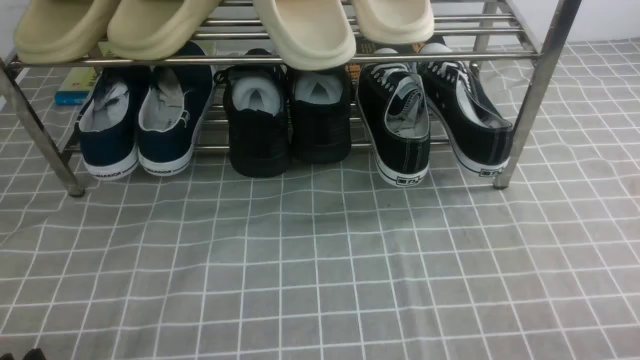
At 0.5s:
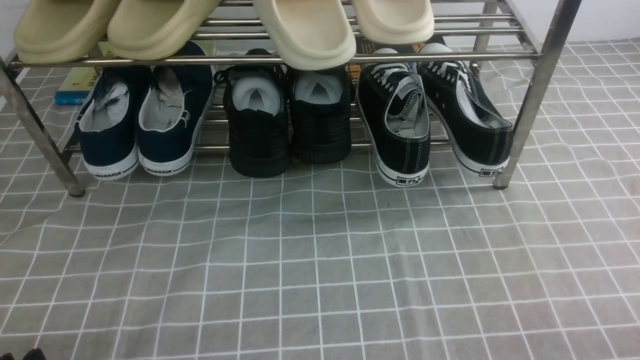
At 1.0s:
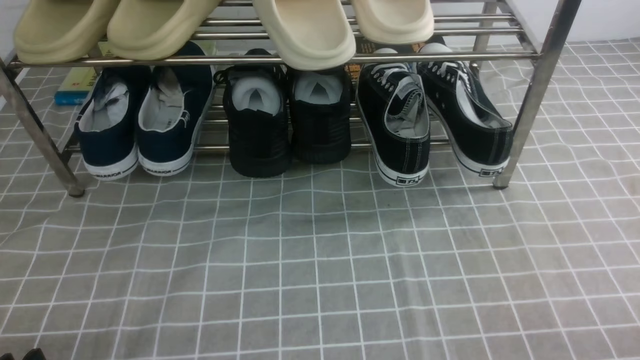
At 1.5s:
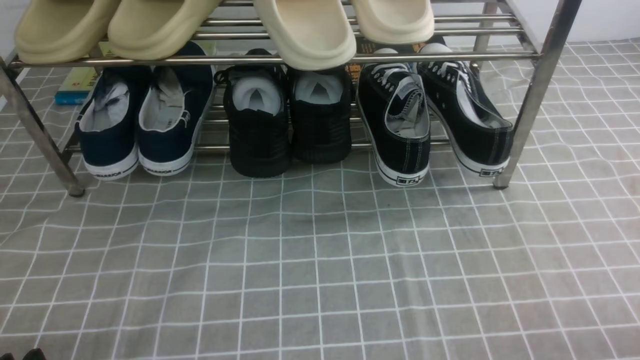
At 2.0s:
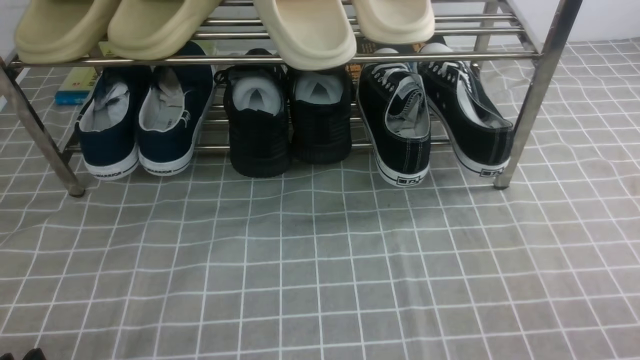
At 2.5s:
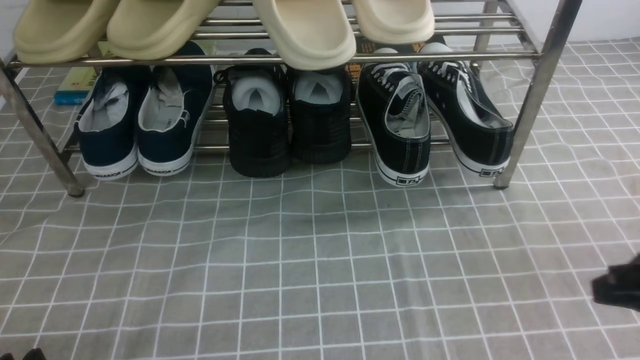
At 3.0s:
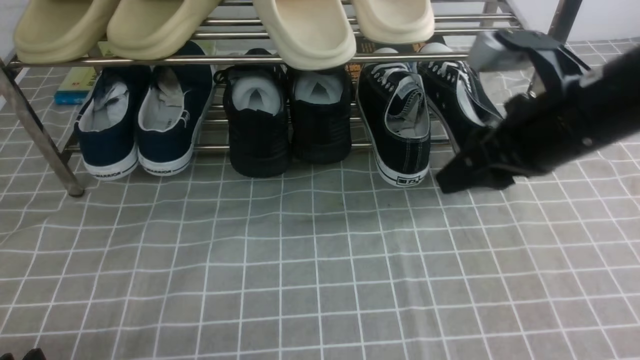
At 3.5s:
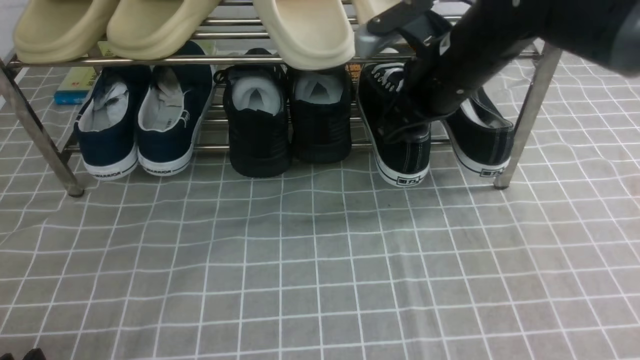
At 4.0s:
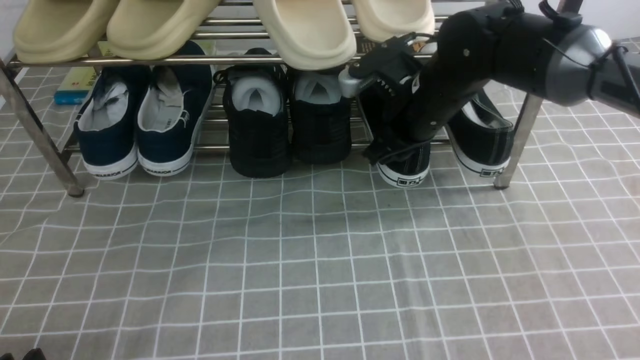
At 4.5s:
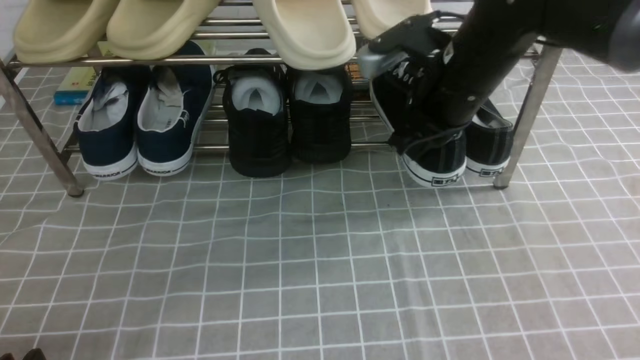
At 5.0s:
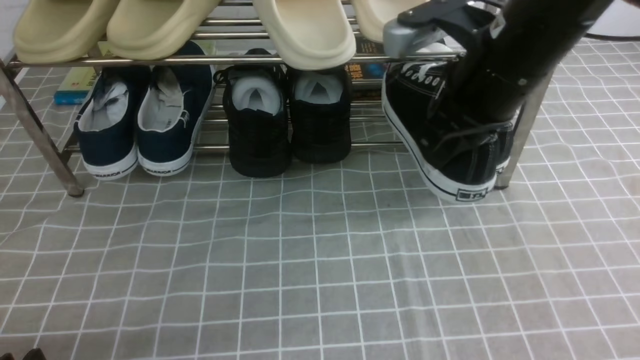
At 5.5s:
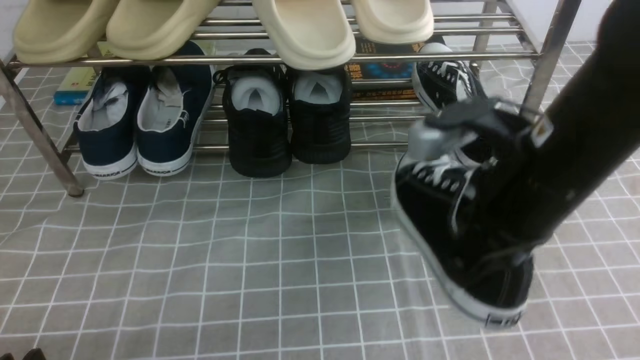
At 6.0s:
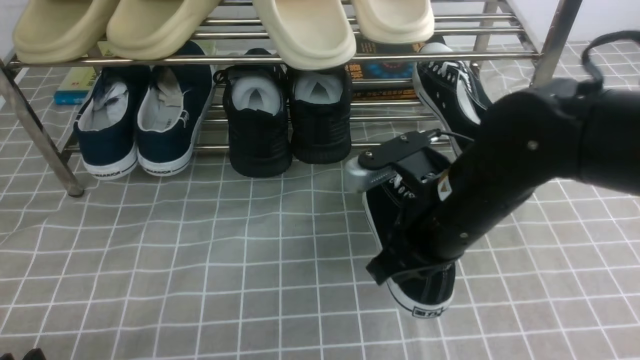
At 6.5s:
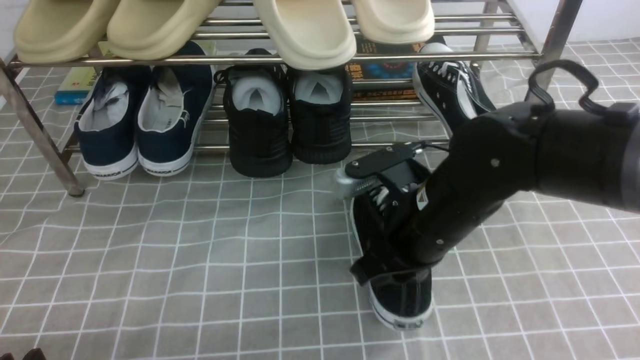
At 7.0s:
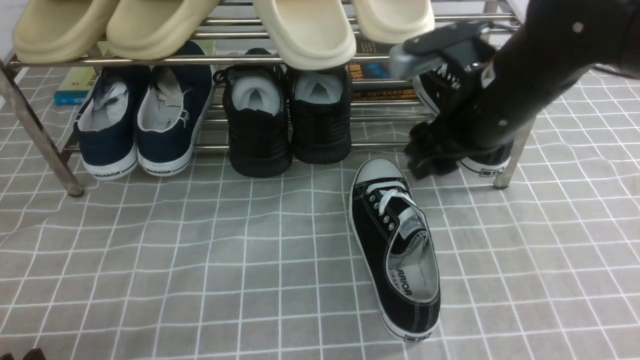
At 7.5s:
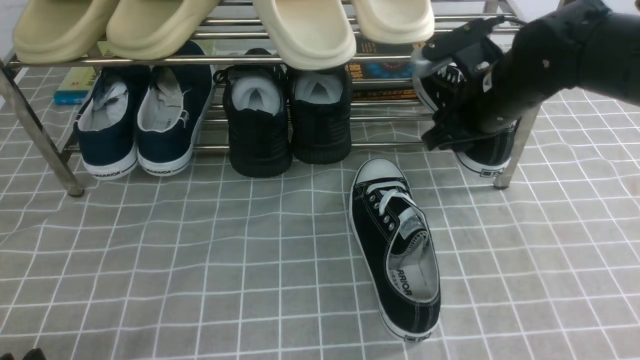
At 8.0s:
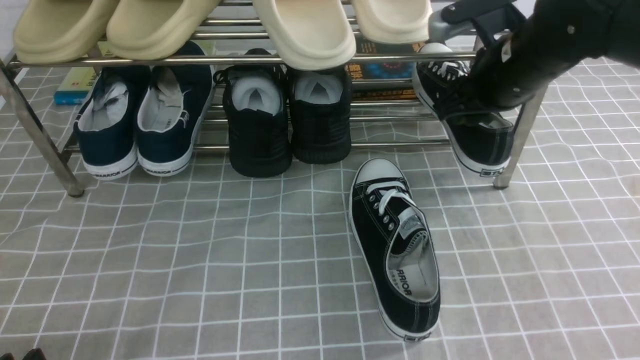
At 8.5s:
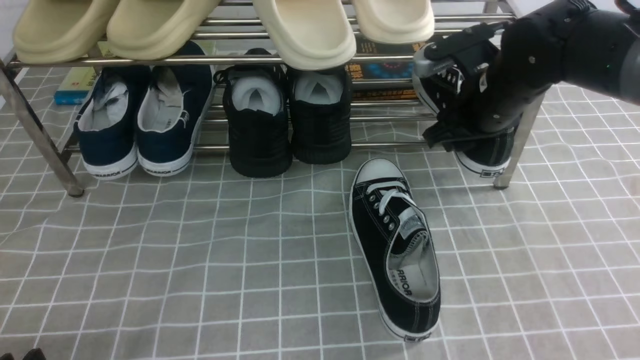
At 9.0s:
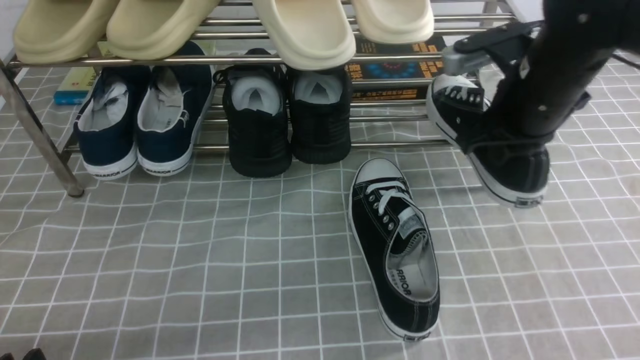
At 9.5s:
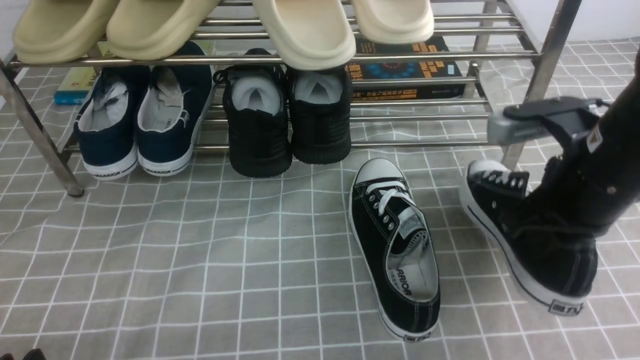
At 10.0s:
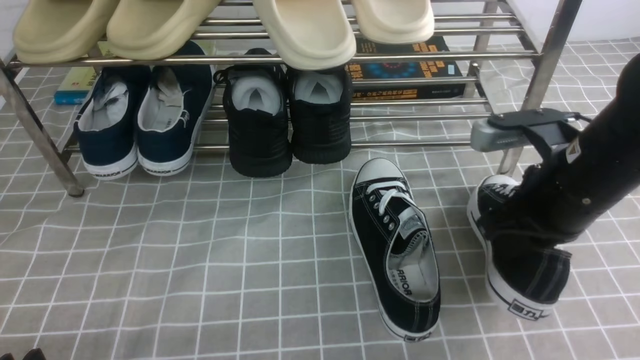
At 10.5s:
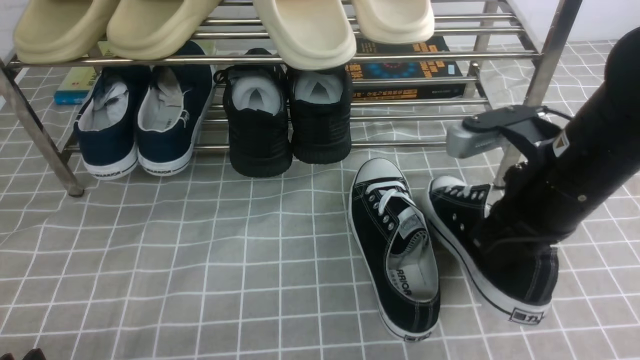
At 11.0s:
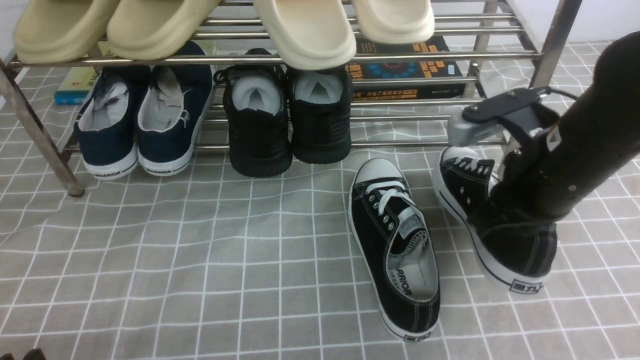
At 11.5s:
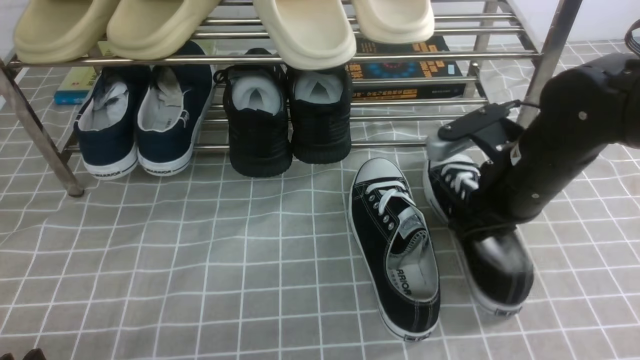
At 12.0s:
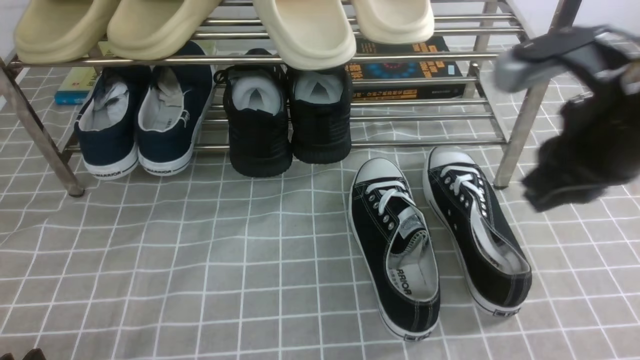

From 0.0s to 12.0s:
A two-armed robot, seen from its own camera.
Step, from 0.0s to 4.0s: use the right arm to clamp a shoe on the right side of the shoe rack.
Step, from 4.5s to 6.5s: use the right arm to take out the clamped shoe from the shoe rack and put it down.
Step, from 7.0s to 8.5s: use the right arm to clamp a shoe on the right side of the shoe rack.
Step, from 9.0s to 11.5s: use the right arm to take out the clamped shoe from the shoe rack and put it down.
From 2.0s to 4.0s: The right gripper heads forward and to the left, covering some 40 cm.
From 4.0s to 6.0s: The right gripper travels backward by some 15 cm, and closes.
From 6.0s to 8.0s: The right gripper goes some 15 cm forward and to the right, and opens.
From 8.0s to 10.0s: The right gripper shifts roughly 10 cm backward, and closes up.
From 10.0s to 12.0s: The right gripper goes some 5 cm upward, and opens.

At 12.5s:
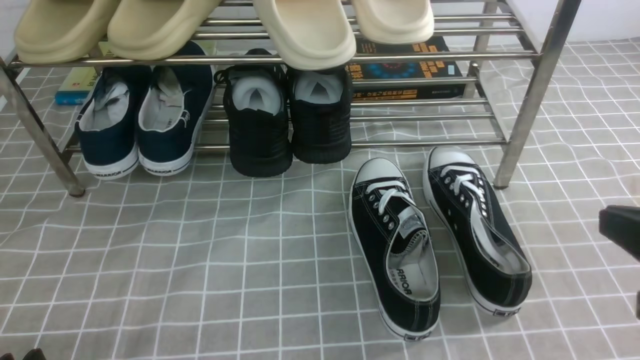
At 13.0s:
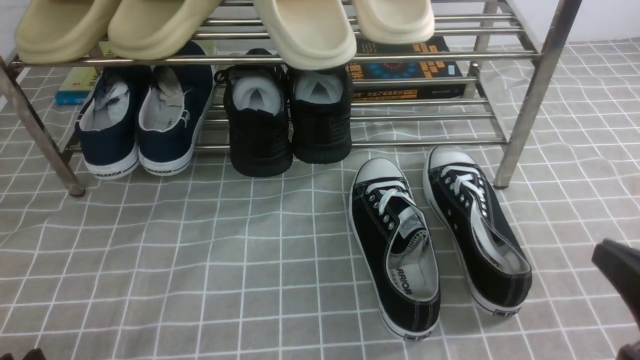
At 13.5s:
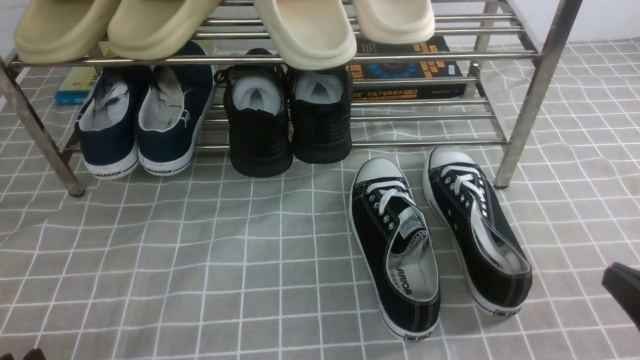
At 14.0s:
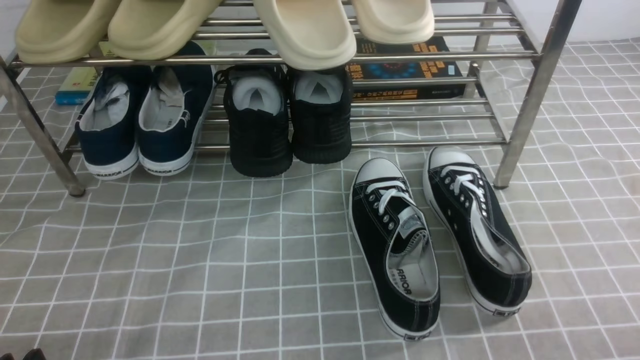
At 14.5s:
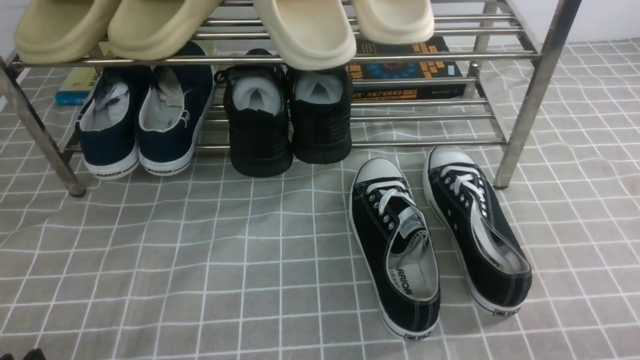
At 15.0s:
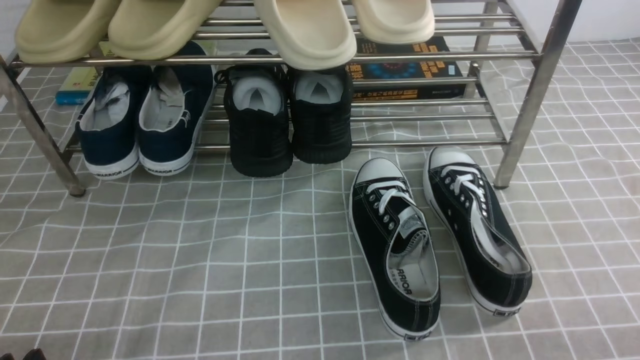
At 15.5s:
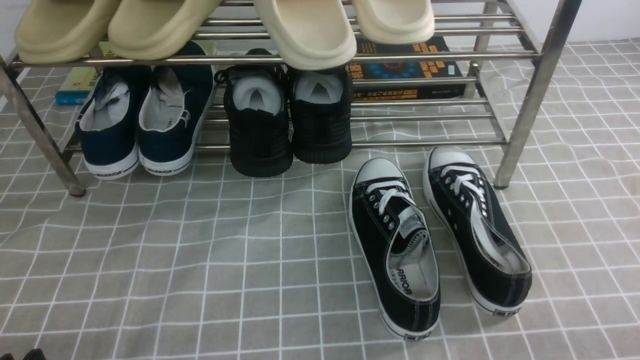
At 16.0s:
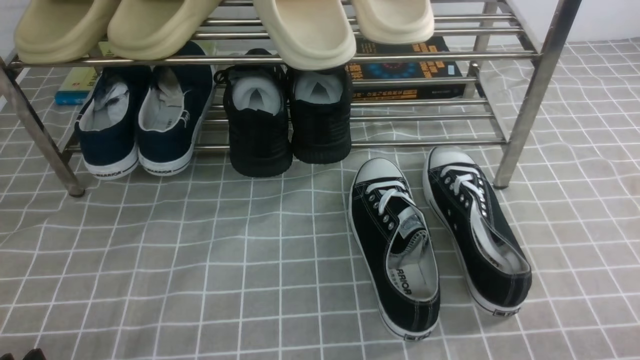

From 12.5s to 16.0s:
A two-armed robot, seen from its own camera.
From 12.5s to 14.5s: The right gripper is displaced downward, backward and to the right by some 20 cm.
From 14.5s to 16.0s: Both grippers stay put.
